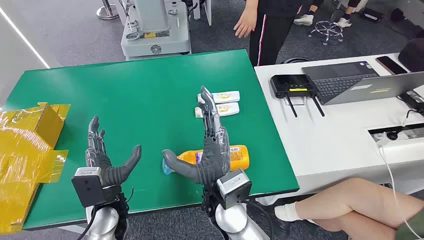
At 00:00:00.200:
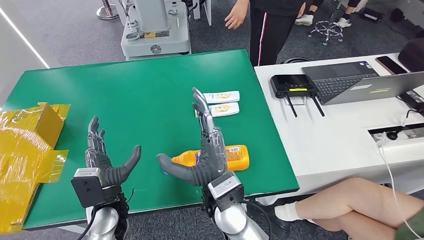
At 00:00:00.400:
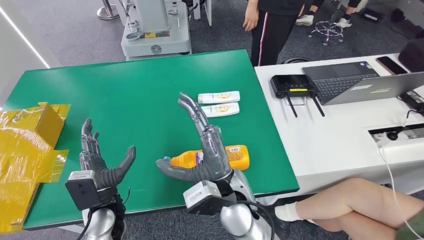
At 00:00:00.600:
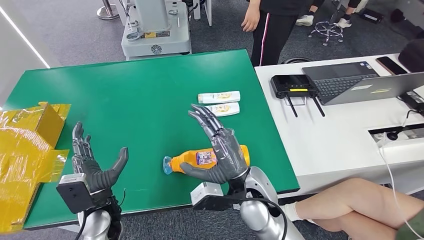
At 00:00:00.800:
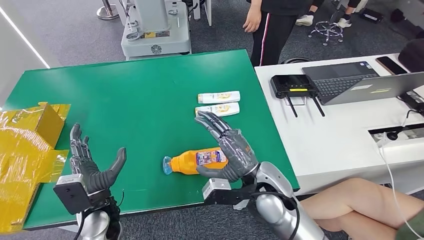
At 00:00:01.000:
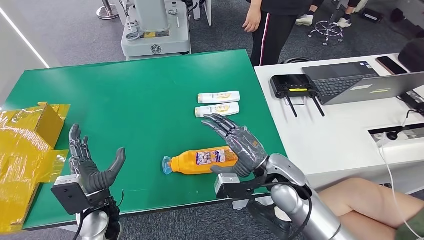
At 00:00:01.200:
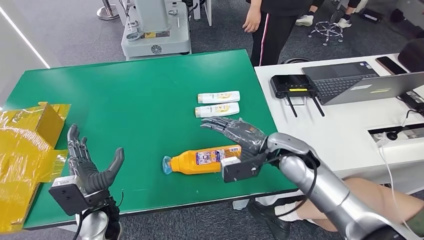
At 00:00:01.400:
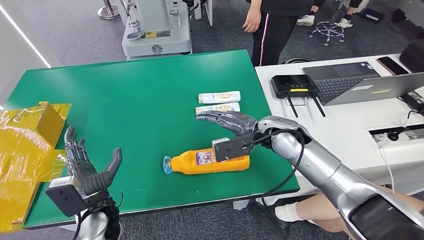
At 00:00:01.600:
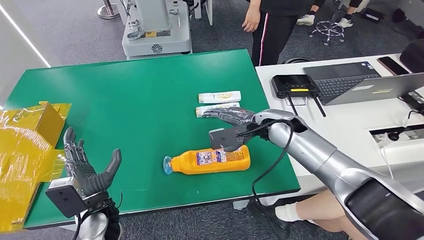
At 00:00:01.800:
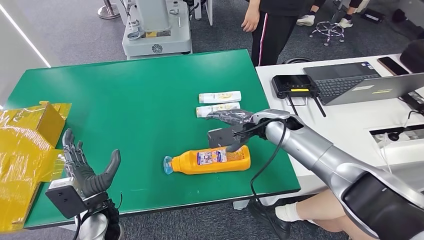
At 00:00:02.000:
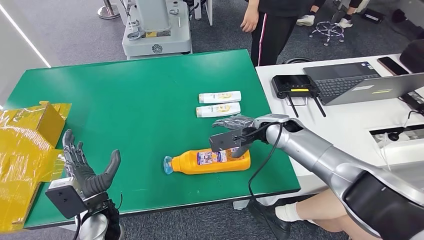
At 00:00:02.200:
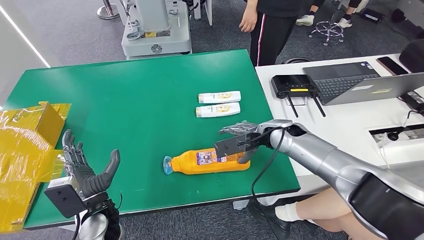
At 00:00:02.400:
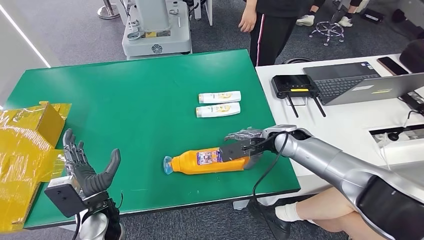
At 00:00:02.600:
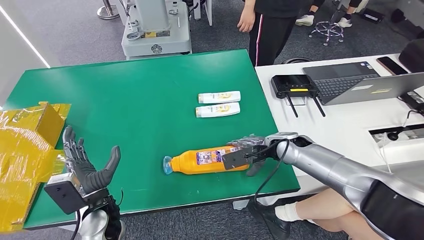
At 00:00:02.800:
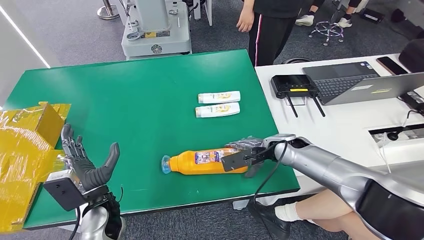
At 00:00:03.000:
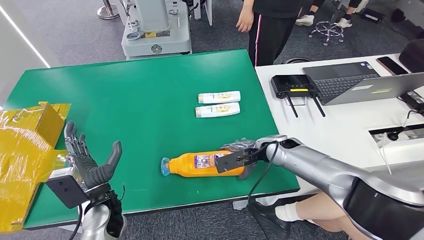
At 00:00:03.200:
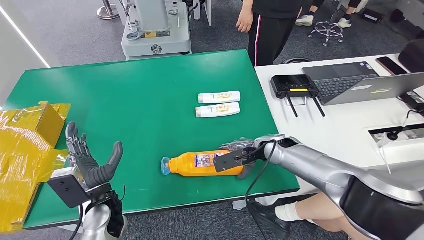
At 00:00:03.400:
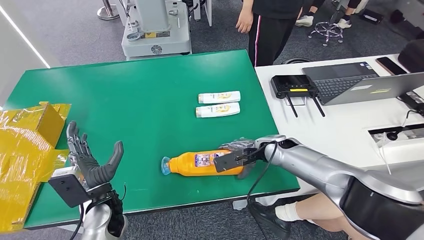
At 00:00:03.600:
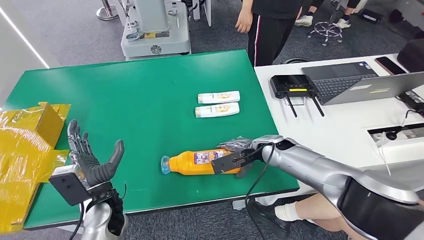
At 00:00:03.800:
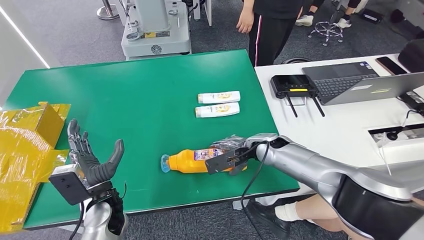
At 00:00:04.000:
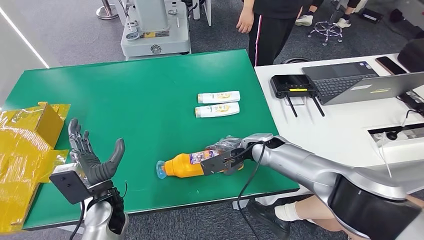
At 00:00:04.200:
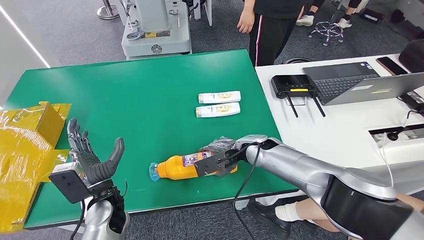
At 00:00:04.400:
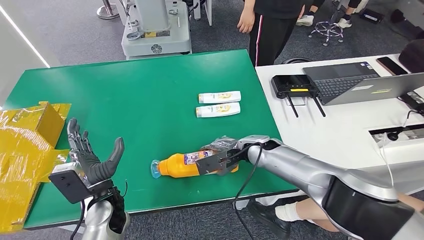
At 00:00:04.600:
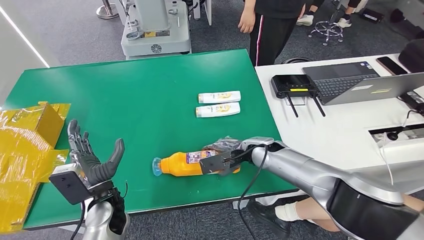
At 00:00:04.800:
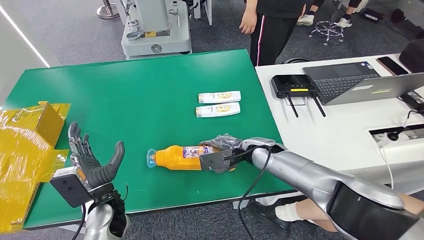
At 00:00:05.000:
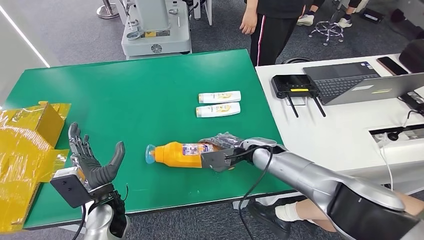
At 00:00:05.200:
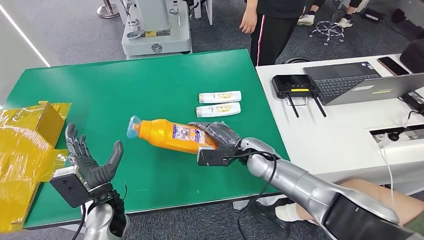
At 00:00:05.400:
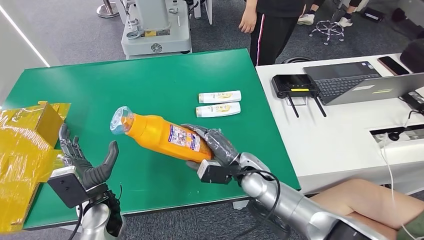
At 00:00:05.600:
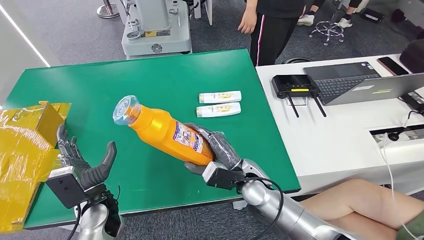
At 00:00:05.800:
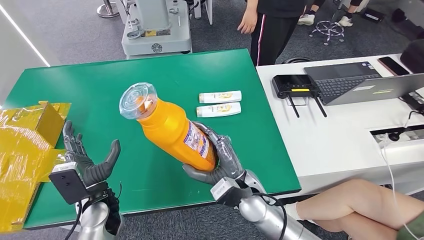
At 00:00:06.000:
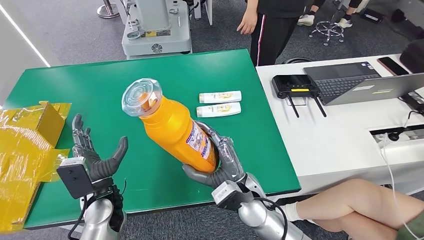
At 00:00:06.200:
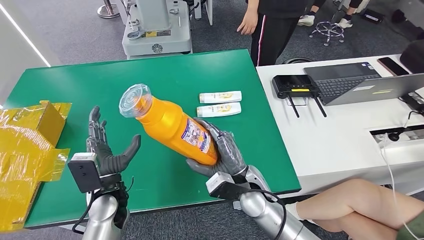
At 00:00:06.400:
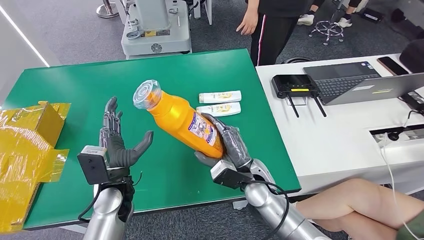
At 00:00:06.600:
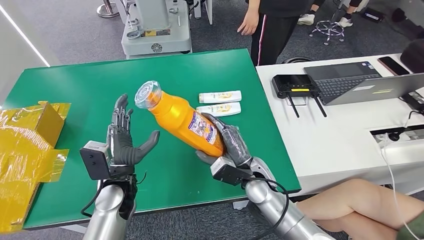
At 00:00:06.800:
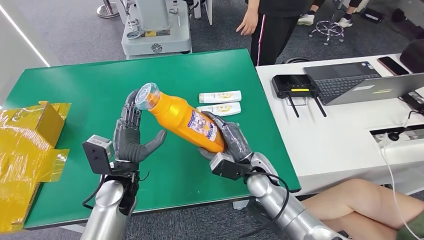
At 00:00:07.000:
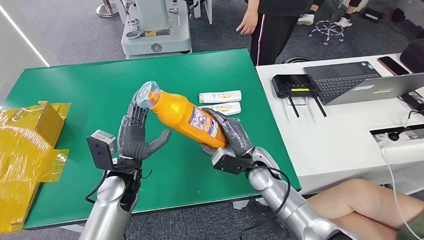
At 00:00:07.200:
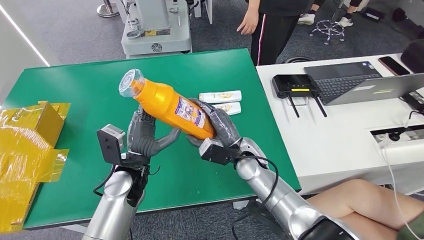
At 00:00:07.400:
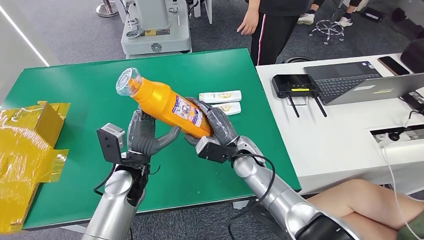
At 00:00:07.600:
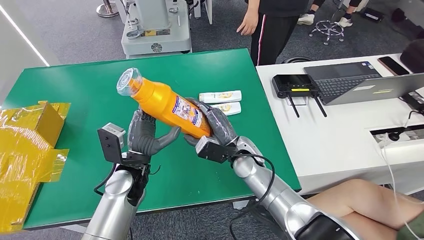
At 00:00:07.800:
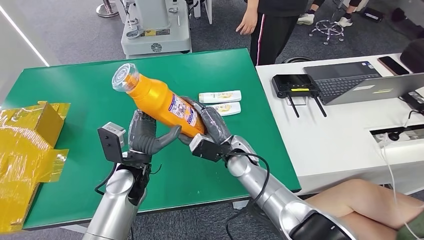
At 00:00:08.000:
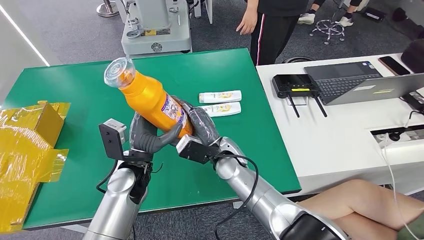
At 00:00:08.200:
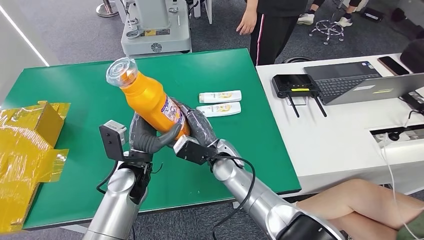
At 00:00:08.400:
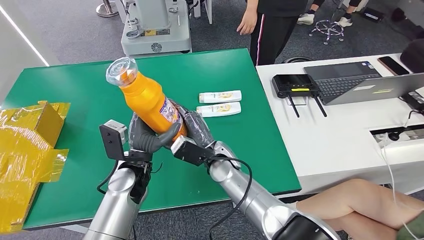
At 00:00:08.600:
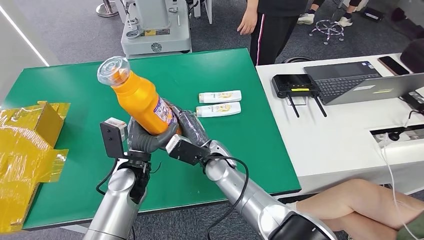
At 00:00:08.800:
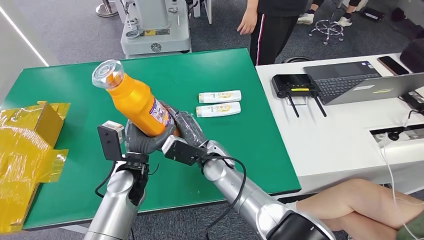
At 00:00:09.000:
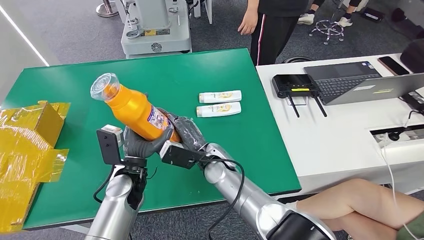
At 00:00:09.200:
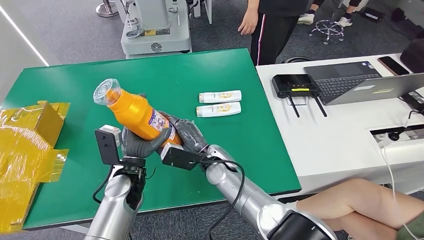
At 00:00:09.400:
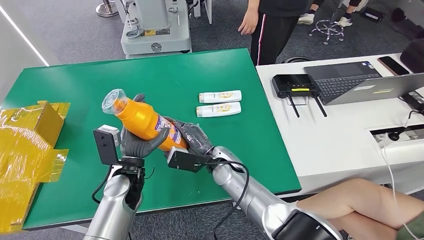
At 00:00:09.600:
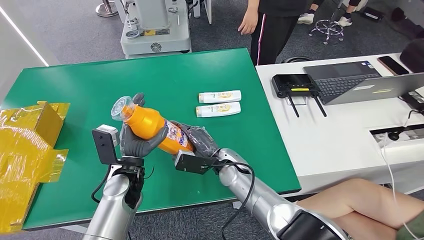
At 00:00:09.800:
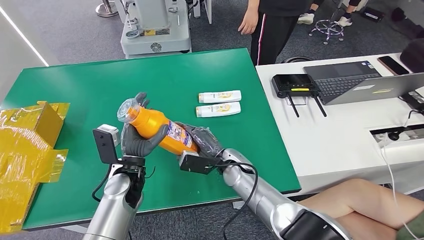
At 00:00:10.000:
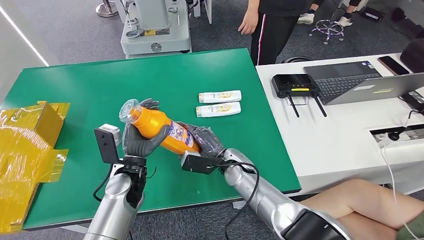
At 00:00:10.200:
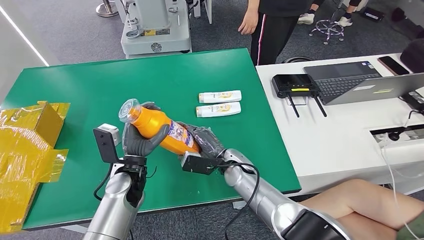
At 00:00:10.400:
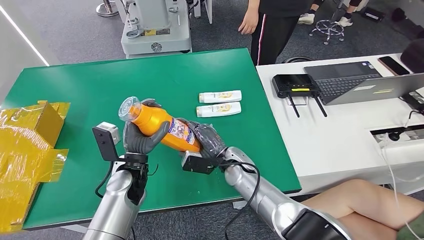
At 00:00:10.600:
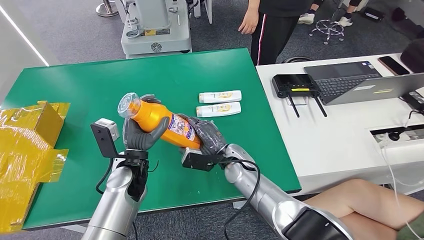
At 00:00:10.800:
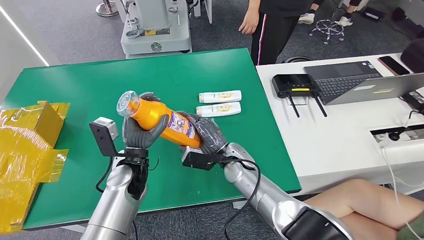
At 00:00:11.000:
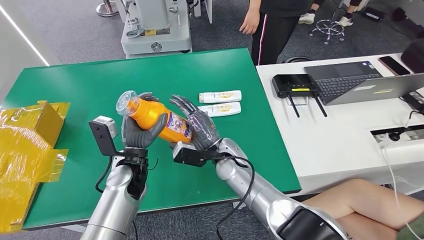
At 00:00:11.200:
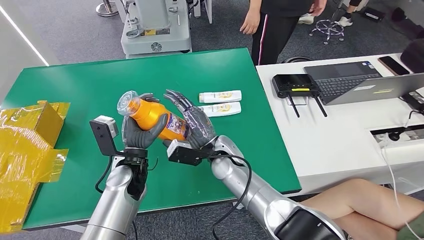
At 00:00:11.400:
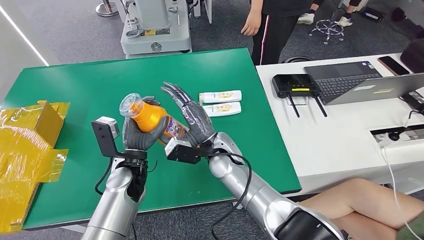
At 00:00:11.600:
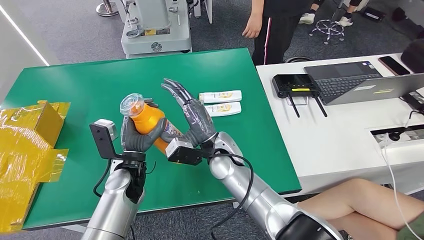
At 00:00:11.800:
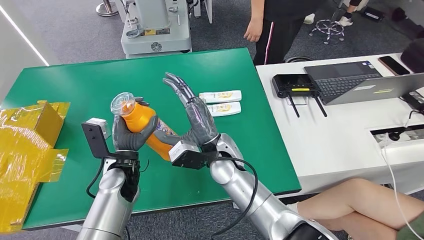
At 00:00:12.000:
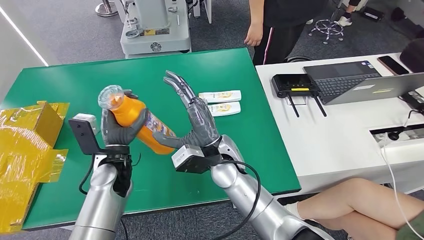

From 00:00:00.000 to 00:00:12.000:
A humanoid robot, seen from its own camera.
Step, from 00:00:00.000 to 00:00:05.200: Pick up the bottle from the table.
From 00:00:01.600 to 00:00:03.000: The right hand shifts some 10 cm downward.
From 00:00:03.000 to 00:00:04.400: The right hand shifts approximately 5 cm to the left.
From 00:00:07.600 to 00:00:09.000: The right hand travels to the left by some 10 cm.
From 00:00:09.000 to 00:00:10.400: The right hand heads to the right, covering about 5 cm.
From 00:00:10.400 to 00:00:12.000: The right hand is displaced upward and to the left by approximately 10 cm.

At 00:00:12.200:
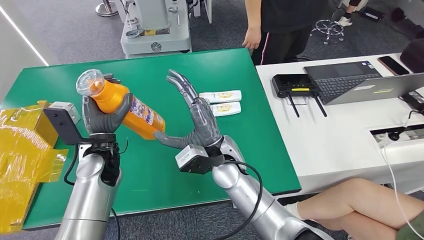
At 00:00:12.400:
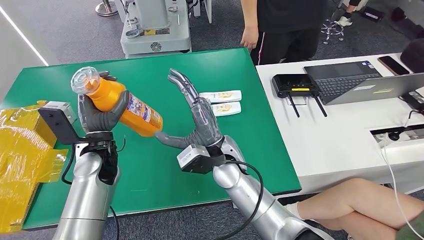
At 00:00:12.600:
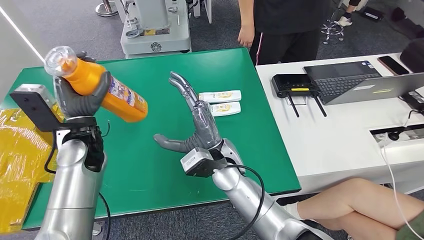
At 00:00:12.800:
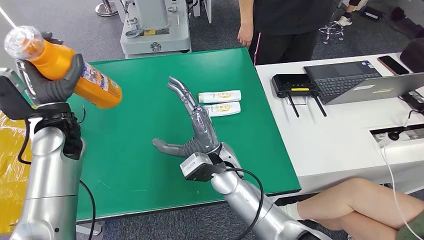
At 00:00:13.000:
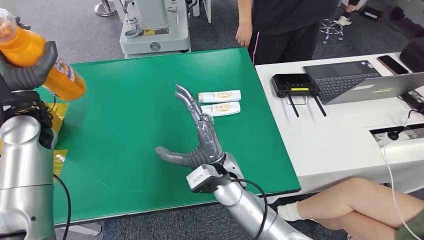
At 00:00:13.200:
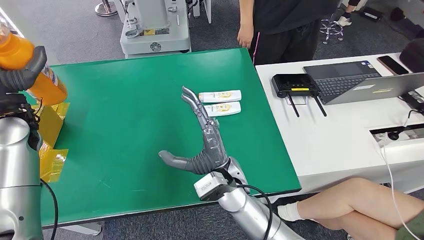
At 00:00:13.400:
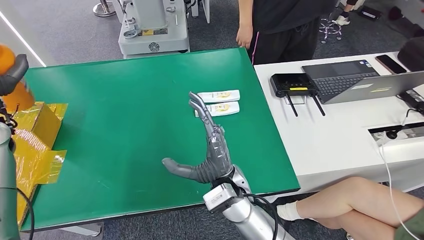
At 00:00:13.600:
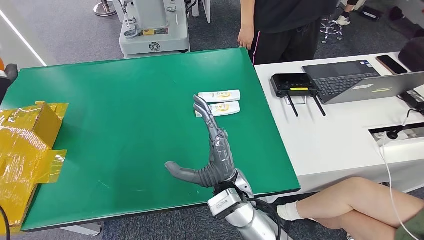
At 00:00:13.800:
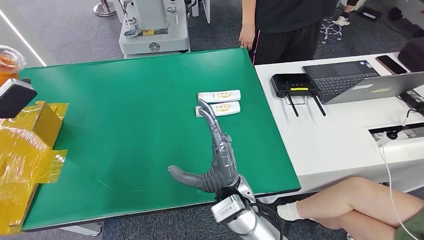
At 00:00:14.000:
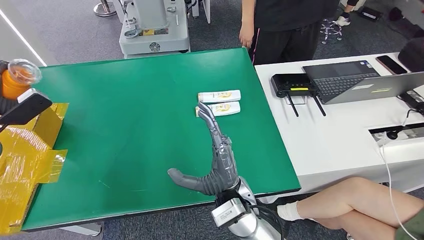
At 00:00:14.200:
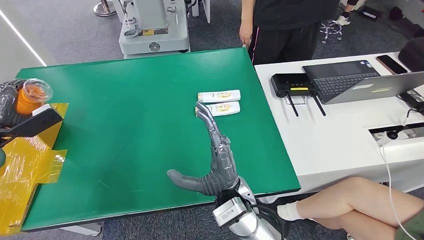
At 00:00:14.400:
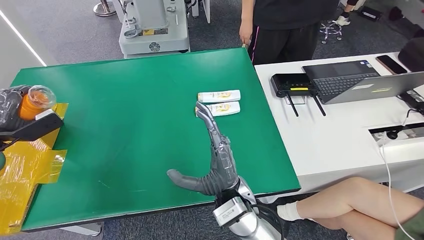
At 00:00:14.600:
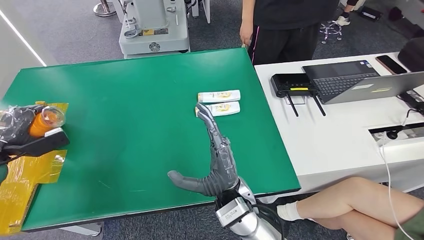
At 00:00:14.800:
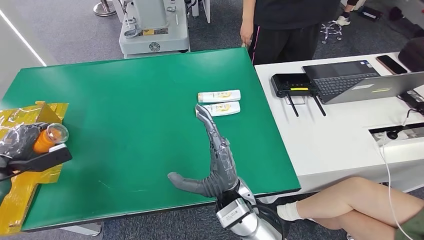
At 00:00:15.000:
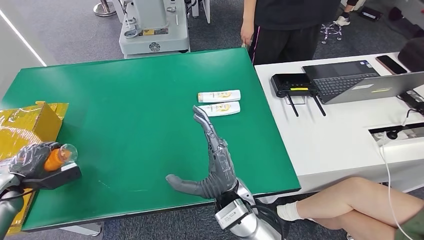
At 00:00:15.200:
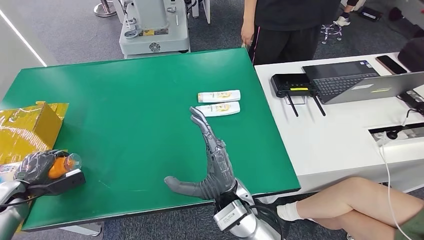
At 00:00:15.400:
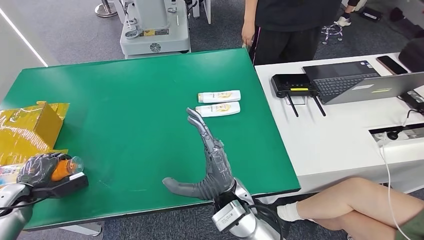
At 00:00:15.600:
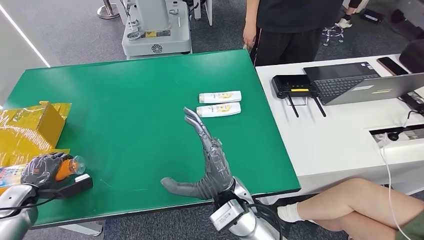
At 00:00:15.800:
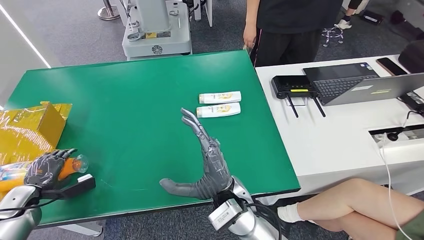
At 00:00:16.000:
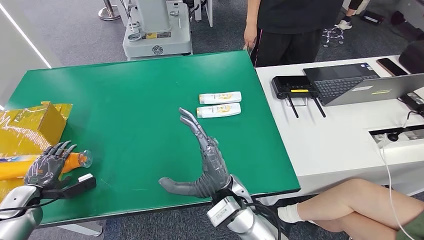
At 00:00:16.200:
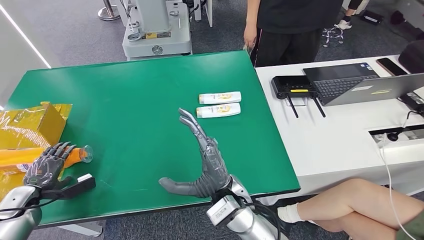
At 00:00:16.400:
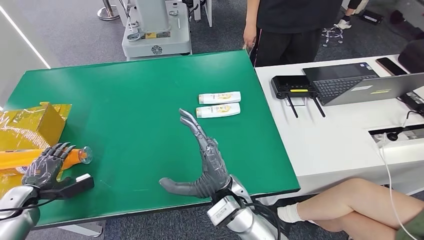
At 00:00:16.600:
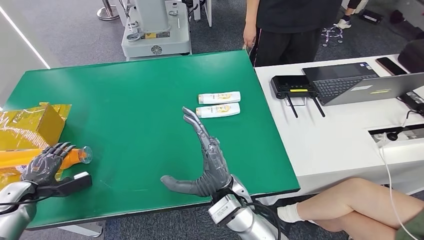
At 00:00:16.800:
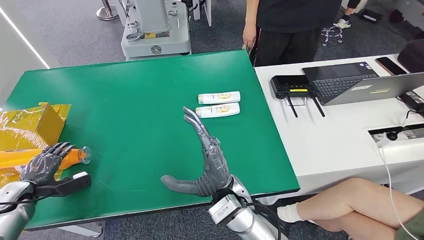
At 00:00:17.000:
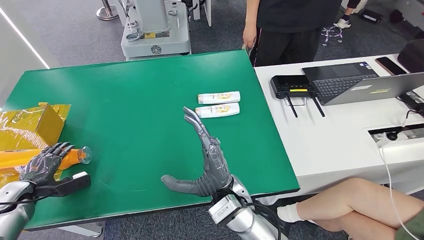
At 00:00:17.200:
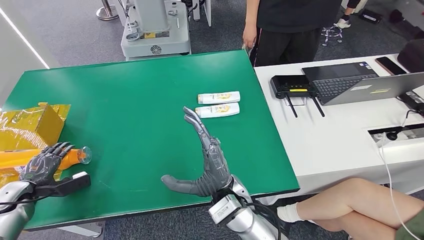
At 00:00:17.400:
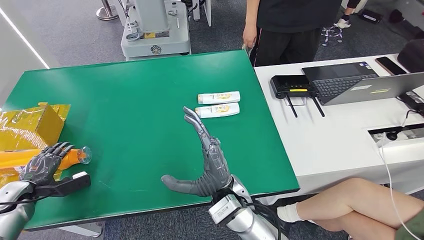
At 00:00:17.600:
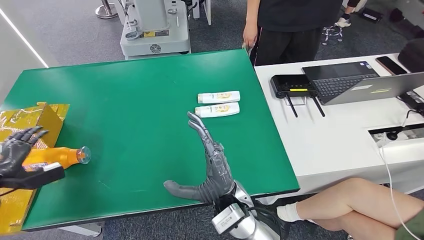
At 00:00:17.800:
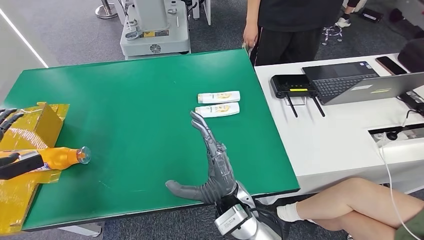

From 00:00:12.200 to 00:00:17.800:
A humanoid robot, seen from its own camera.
Step, from 00:00:12.200 to 00:00:17.800: Turn the bottle to the front side.
From 00:00:13.600 to 00:00:15.000: The left hand goes some 20 cm downward and to the left.
From 00:00:15.000 to 00:00:16.400: The left hand moves about 5 cm.
From 00:00:16.400 to 00:00:17.800: The left hand moves upward and to the left, roughly 15 cm.
